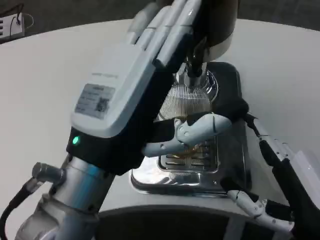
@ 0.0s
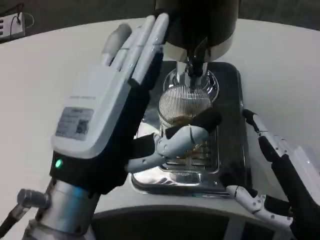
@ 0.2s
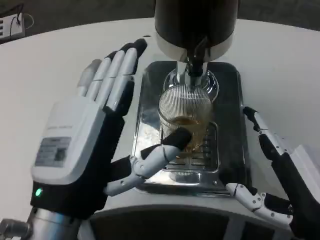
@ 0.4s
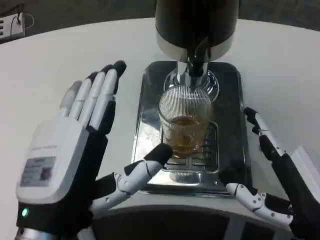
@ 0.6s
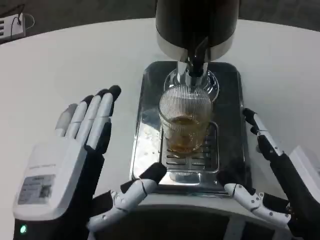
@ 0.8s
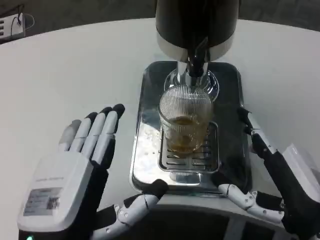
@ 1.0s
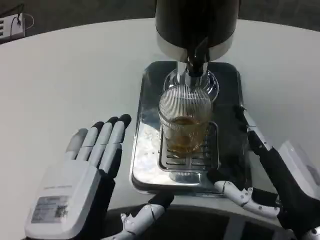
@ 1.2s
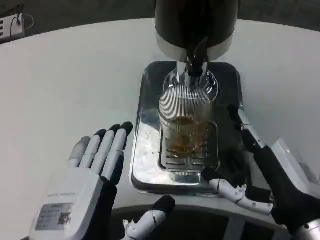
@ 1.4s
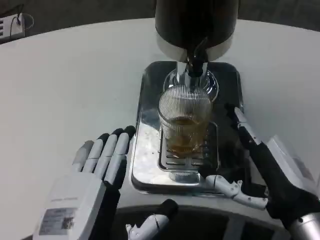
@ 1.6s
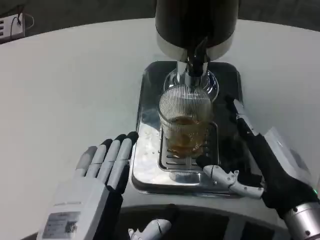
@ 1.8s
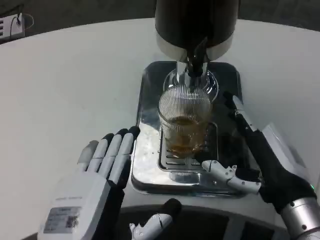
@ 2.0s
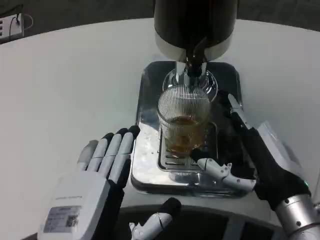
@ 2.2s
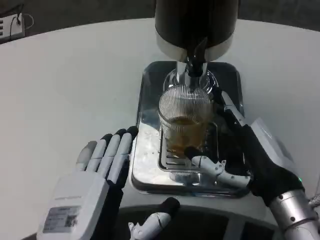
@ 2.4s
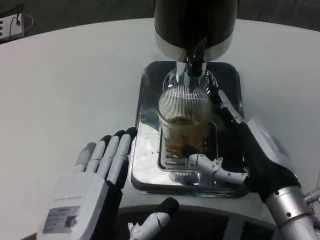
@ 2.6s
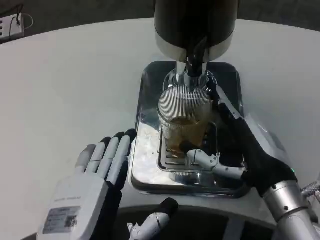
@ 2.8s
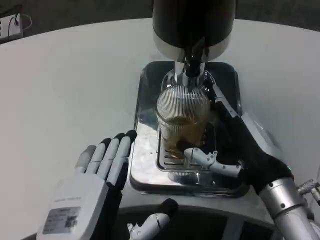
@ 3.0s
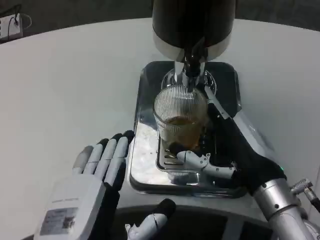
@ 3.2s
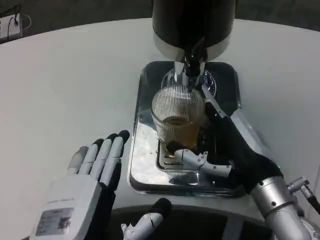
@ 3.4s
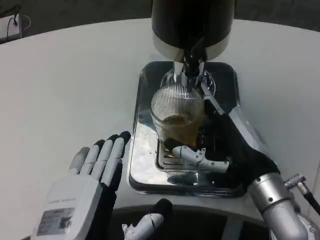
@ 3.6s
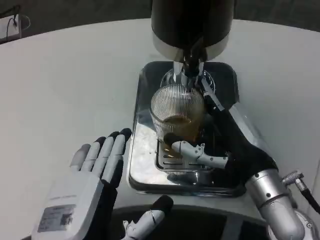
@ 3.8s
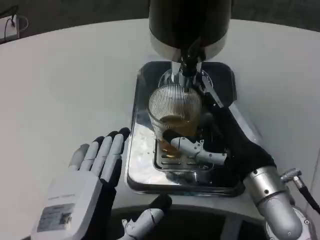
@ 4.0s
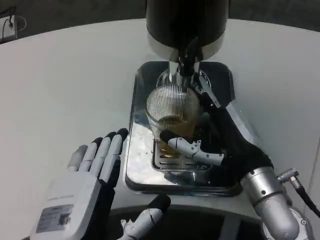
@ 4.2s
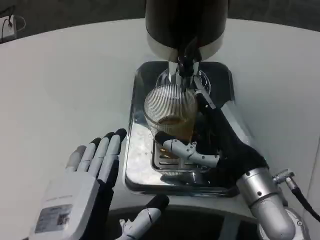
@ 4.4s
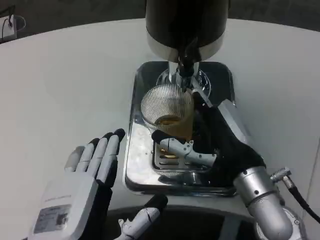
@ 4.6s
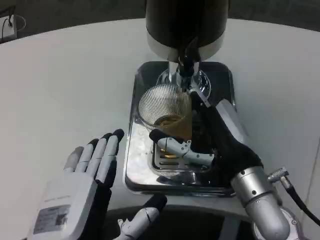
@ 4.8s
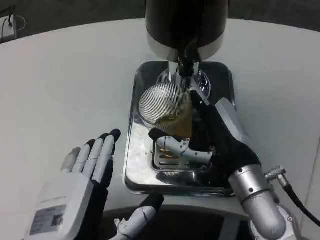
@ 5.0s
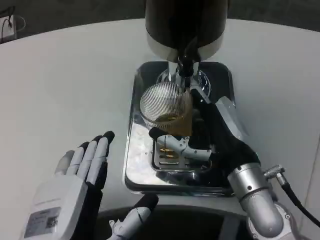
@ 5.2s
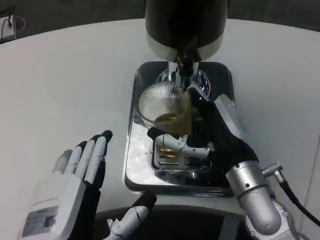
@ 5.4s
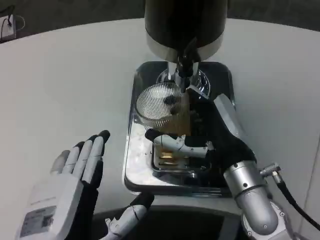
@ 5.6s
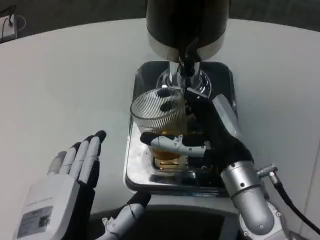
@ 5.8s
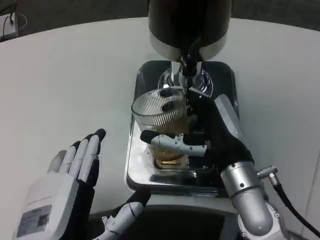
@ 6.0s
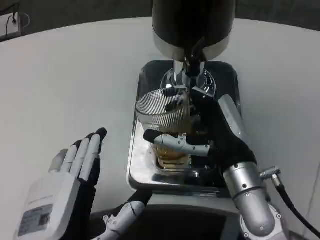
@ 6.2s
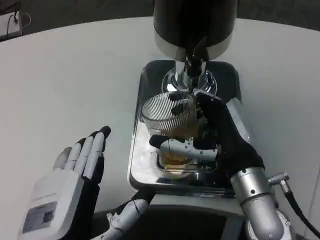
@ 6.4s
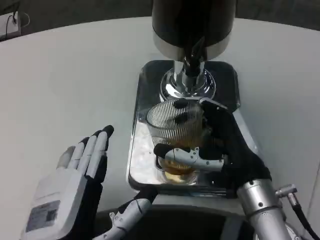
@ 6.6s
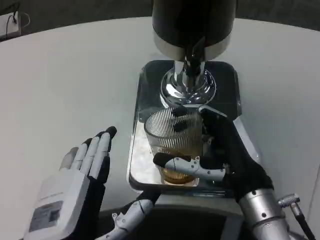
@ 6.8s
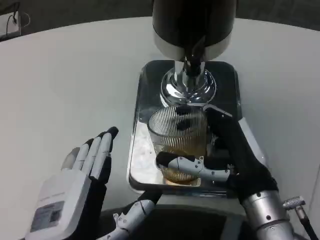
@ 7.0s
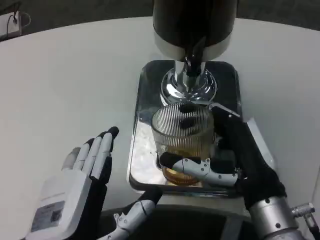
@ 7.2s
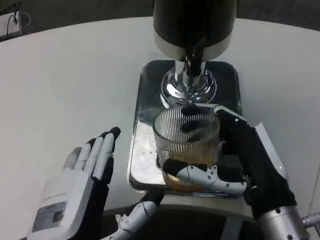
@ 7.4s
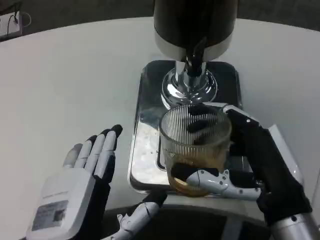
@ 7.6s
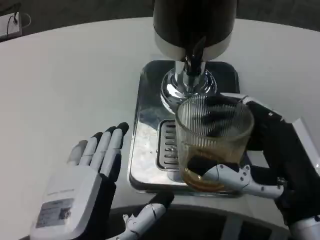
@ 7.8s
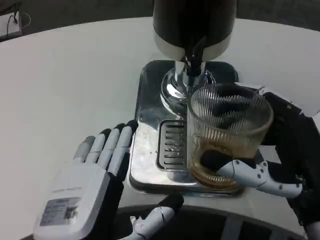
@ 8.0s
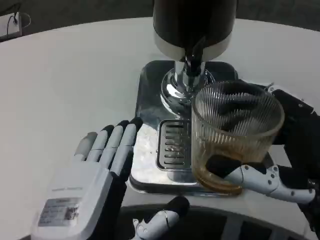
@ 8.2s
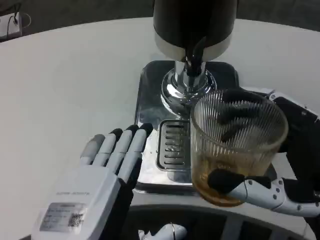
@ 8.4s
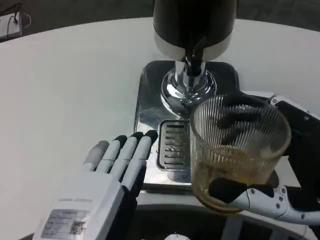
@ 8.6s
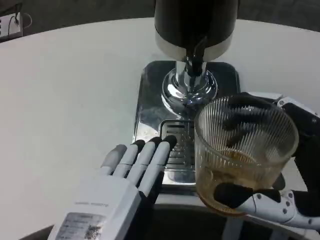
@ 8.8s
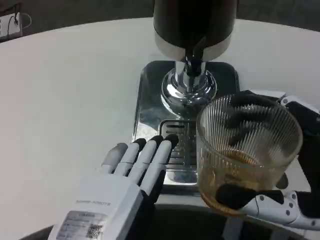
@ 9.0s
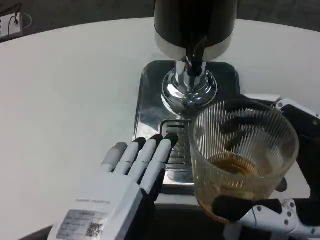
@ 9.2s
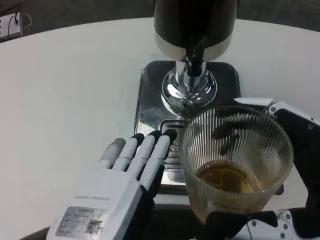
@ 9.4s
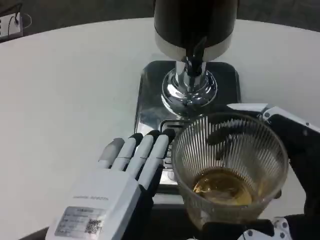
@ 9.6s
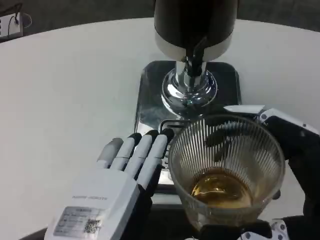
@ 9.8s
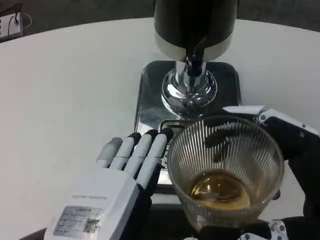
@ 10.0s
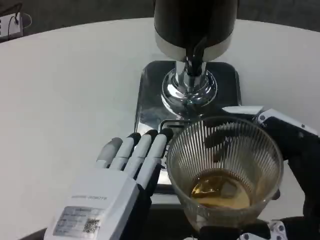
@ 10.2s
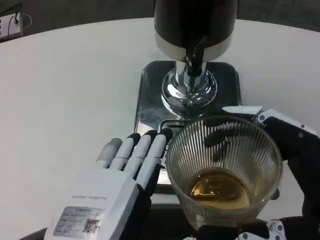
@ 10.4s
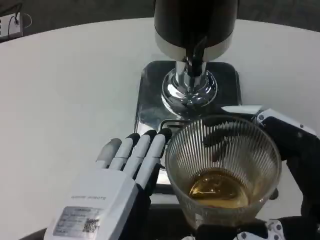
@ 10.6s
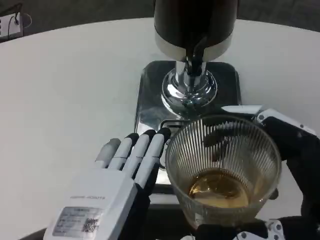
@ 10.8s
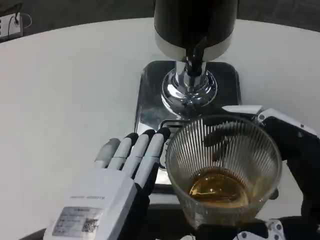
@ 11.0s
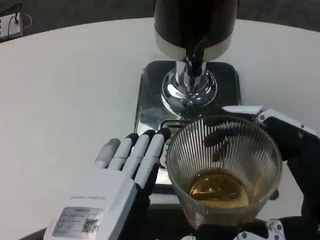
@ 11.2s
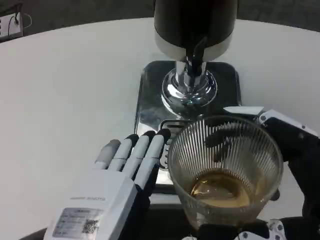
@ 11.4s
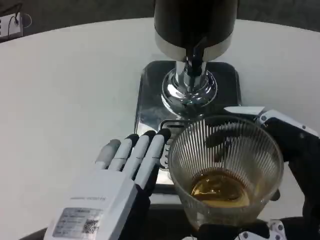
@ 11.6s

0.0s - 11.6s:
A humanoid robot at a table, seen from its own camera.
Task of the whole recording: Grasp the cup under the faucet to collect the drink, then remove the cup.
0.0s - 1.4s: The left hand shifts approximately 10 cm downward and backward.
1.4s - 2.8s: The right hand heads forward, covering about 5 cm.
5.8s - 7.2s: The right hand travels backward by roughly 5 cm.
7.2s - 8.8s: The left hand goes about 5 cm backward; the right hand moves backward and to the right, about 10 cm.
10.2s - 11.6s: The two hands keep their place.

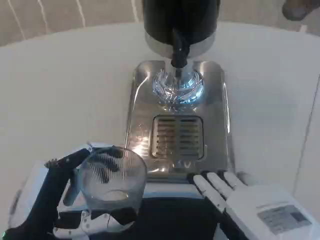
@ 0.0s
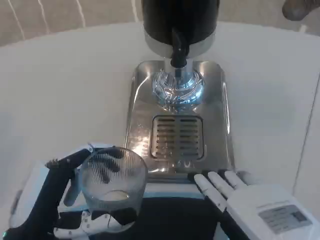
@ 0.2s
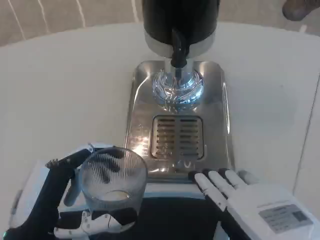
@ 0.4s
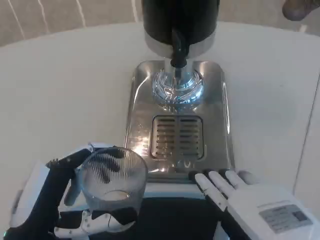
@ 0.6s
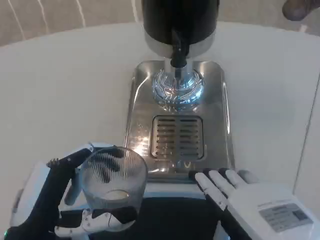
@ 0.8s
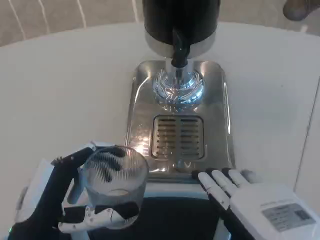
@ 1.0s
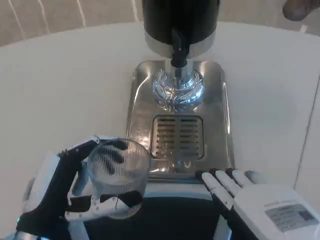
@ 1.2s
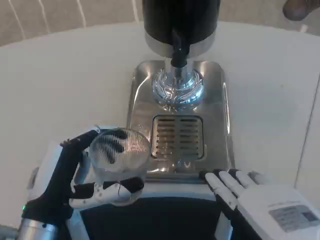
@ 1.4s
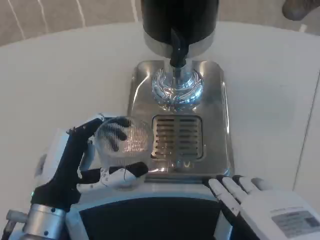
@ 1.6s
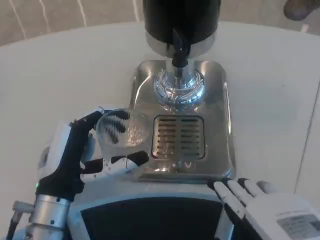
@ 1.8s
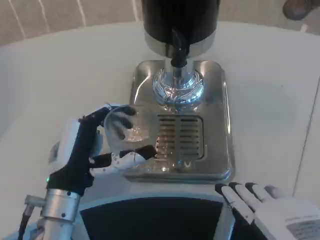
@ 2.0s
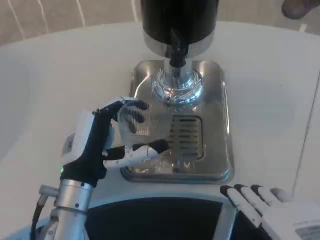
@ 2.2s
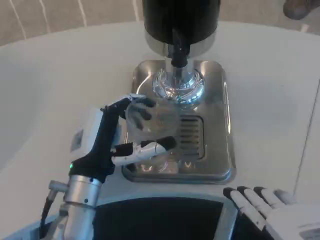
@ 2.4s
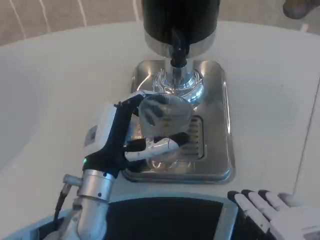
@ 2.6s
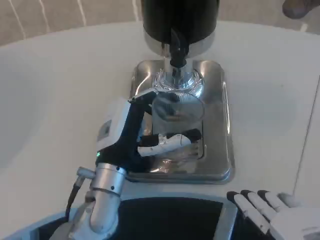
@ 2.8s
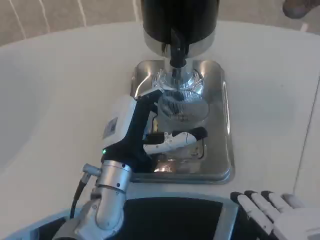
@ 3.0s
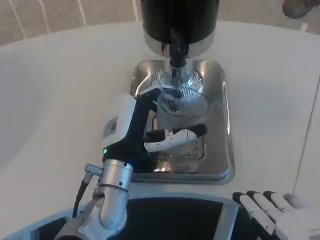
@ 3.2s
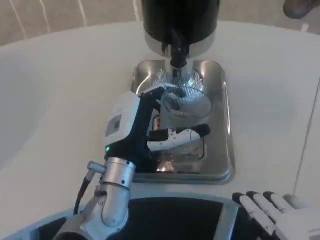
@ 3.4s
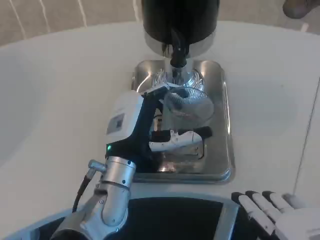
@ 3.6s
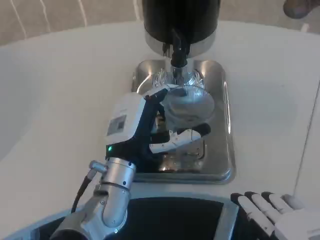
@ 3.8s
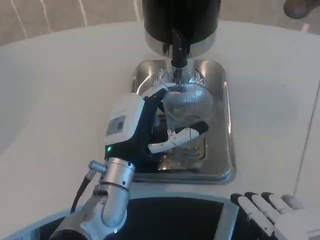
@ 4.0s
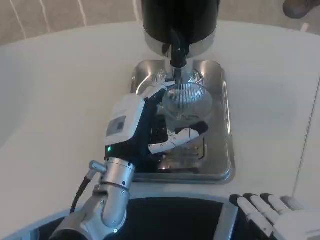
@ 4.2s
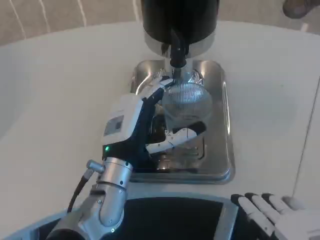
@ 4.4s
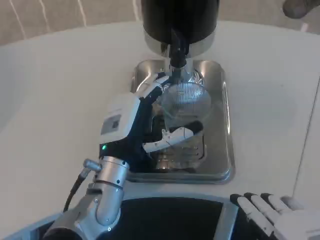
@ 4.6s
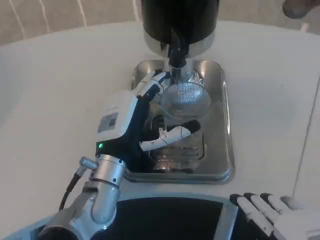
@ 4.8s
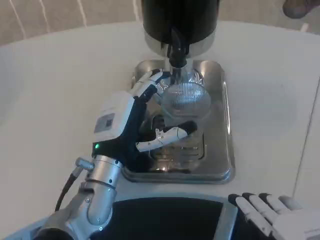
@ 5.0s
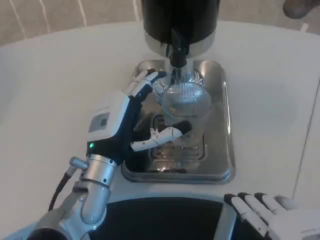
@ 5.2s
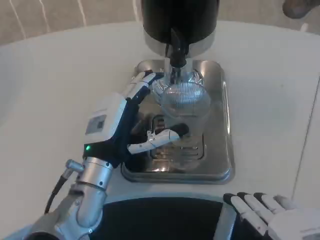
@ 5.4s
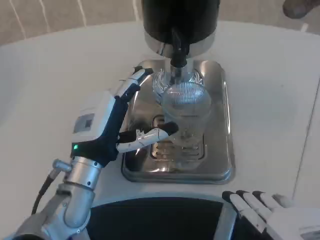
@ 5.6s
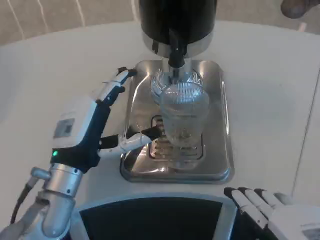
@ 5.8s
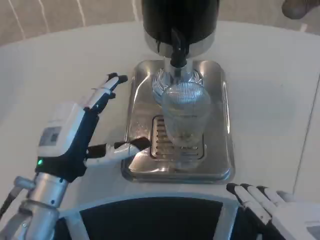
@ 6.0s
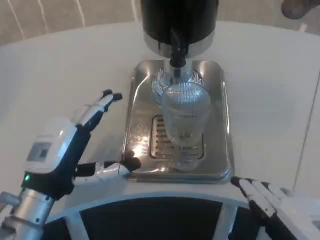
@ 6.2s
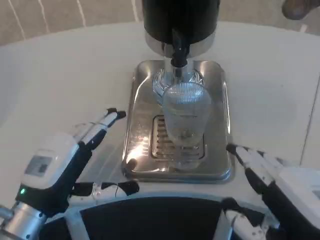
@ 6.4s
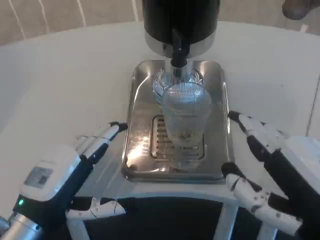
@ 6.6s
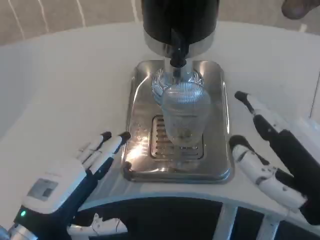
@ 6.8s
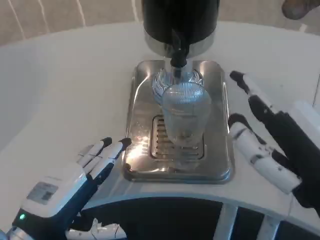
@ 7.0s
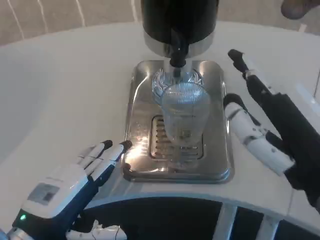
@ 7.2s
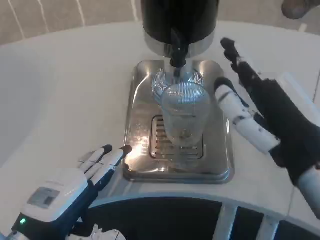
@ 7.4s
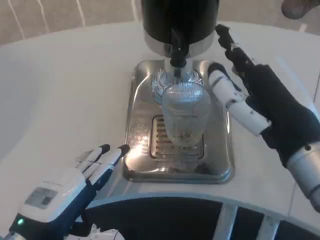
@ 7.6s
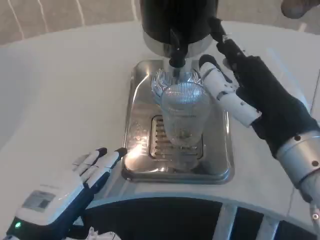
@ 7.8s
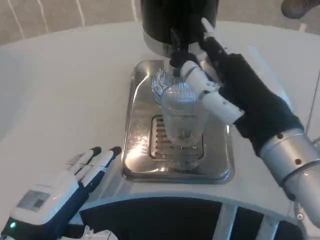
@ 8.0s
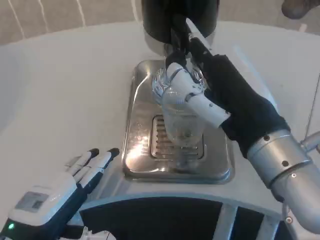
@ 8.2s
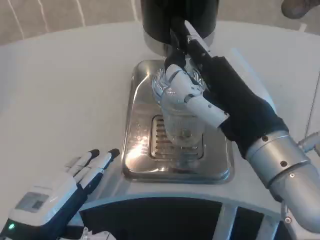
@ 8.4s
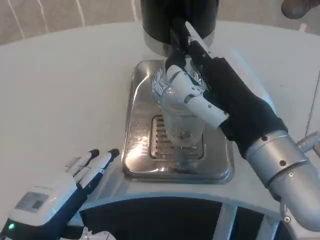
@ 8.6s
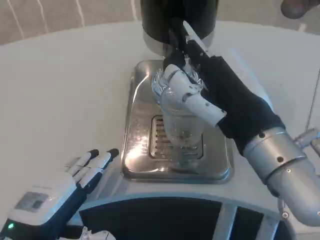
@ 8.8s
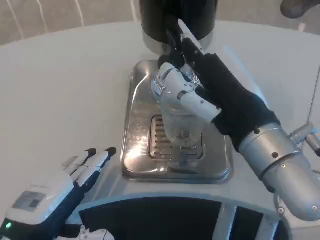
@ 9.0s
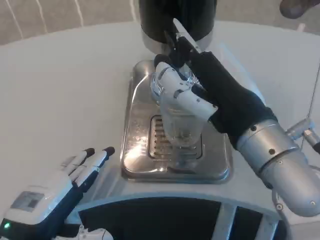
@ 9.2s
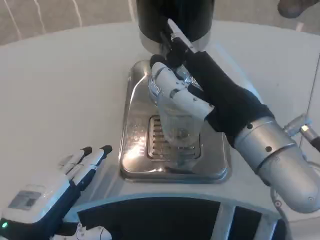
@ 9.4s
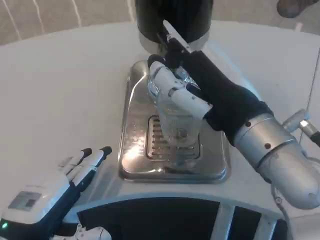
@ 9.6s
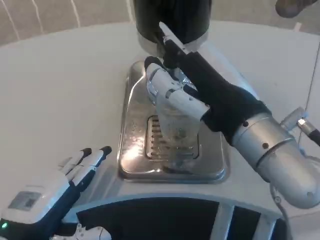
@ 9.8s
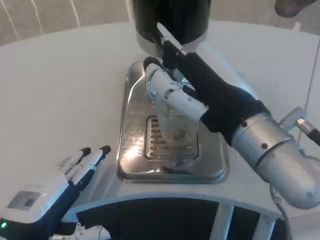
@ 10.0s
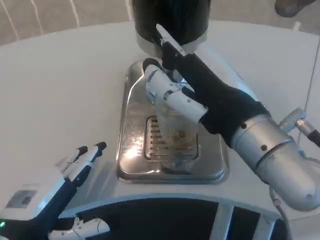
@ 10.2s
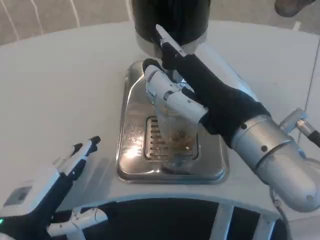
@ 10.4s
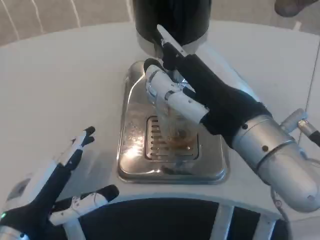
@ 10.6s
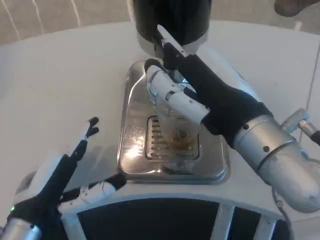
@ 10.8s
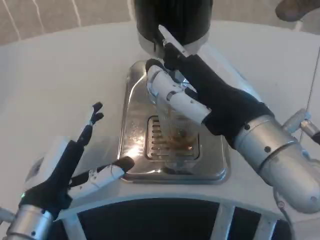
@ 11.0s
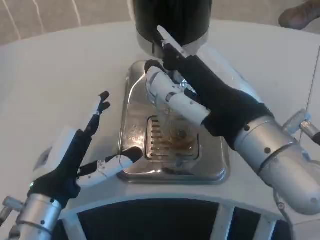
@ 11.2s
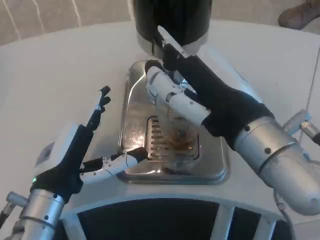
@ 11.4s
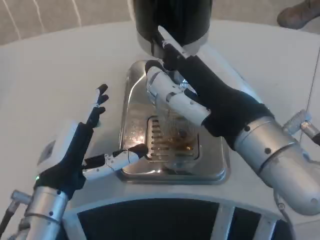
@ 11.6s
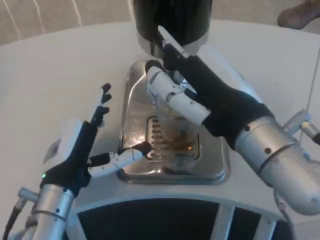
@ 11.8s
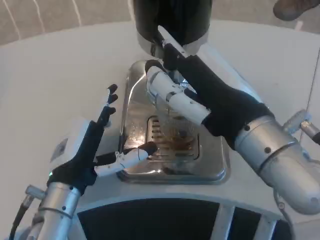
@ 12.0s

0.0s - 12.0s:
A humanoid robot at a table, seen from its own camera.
Task of the whole recording: Grasp the cup under the faucet to collect the drink, then remove the cup.
0.0s - 1.6s: The left hand shifts roughly 5 cm forward.
1.6s - 3.0s: The left hand heads to the right and forward, covering approximately 10 cm.
3.0s - 4.4s: The hands make only small movements.
4.4s - 6.0s: The left hand travels to the left by about 10 cm.
6.0s - 7.6s: The left hand moves backward, roughly 10 cm; the right hand goes some 15 cm forward and upward.
10.4s - 12.0s: The left hand goes roughly 10 cm to the right and forward.
